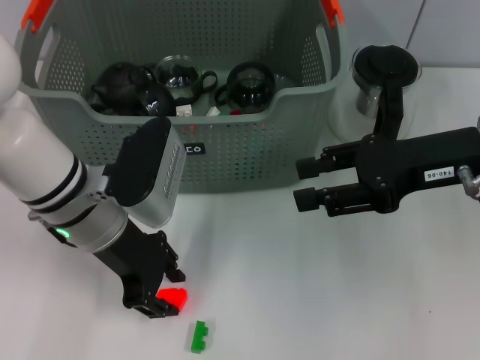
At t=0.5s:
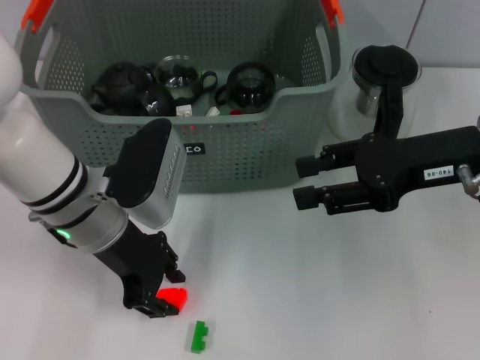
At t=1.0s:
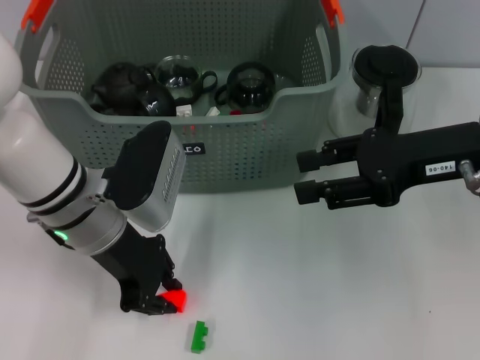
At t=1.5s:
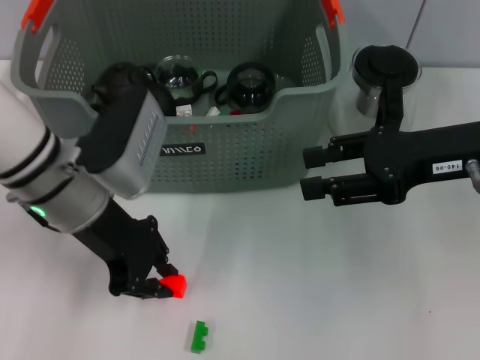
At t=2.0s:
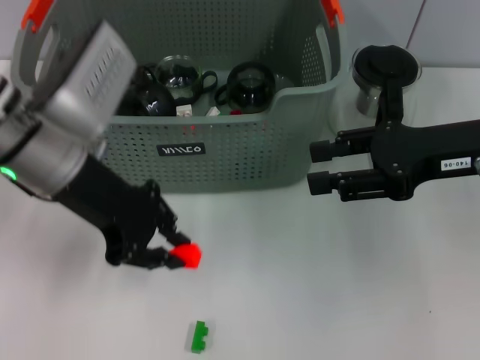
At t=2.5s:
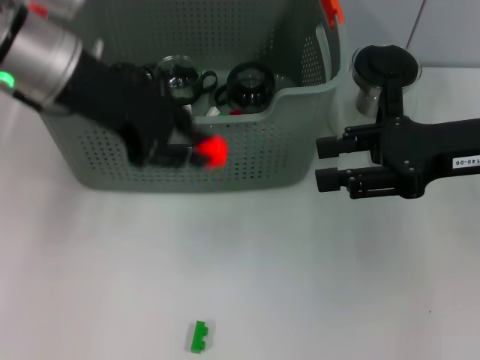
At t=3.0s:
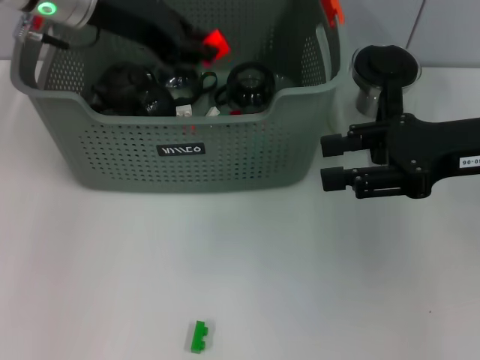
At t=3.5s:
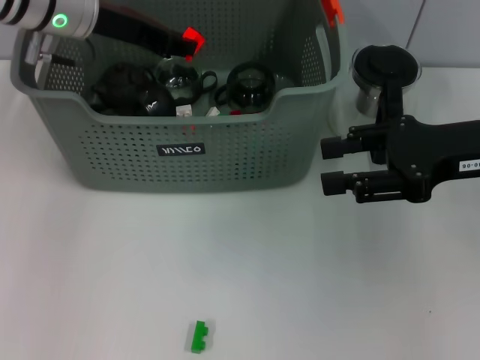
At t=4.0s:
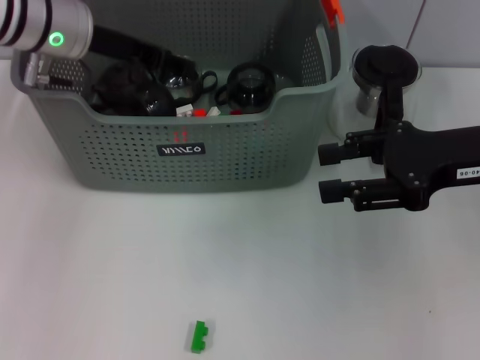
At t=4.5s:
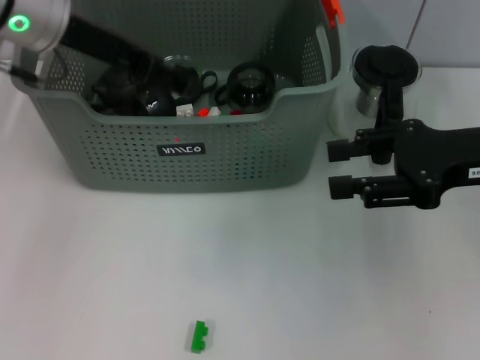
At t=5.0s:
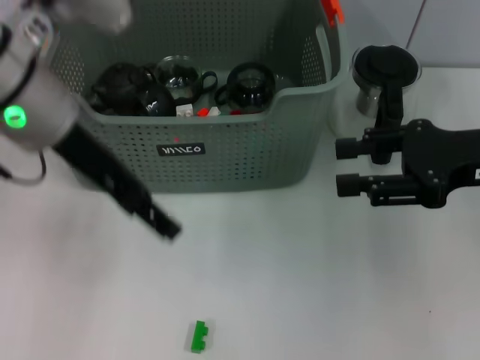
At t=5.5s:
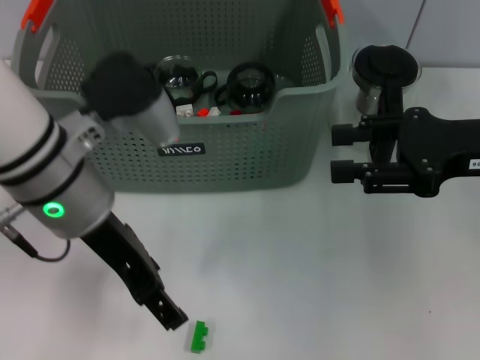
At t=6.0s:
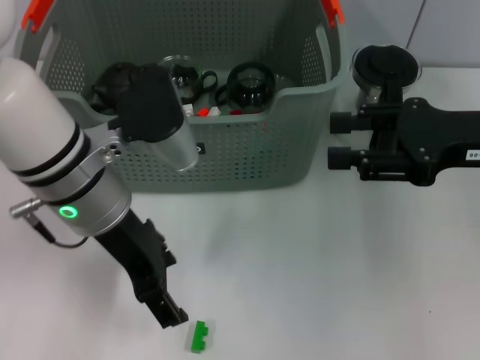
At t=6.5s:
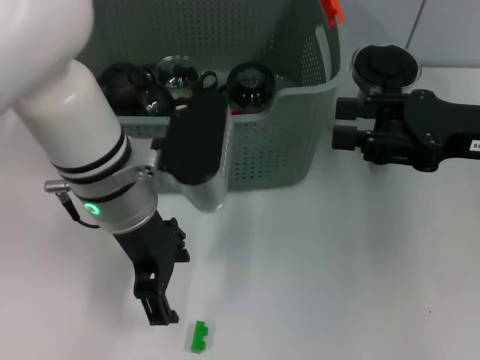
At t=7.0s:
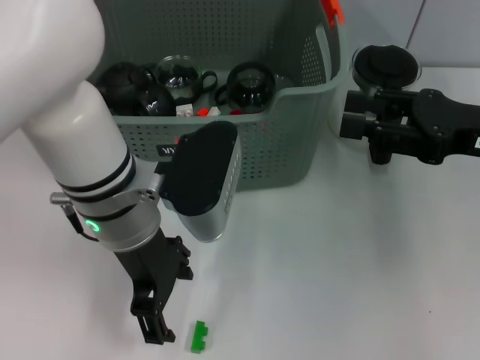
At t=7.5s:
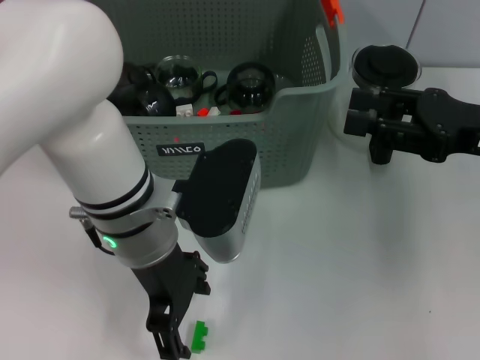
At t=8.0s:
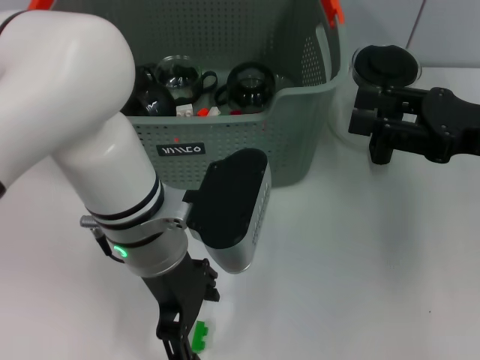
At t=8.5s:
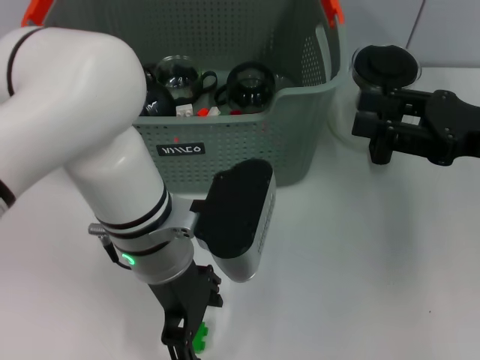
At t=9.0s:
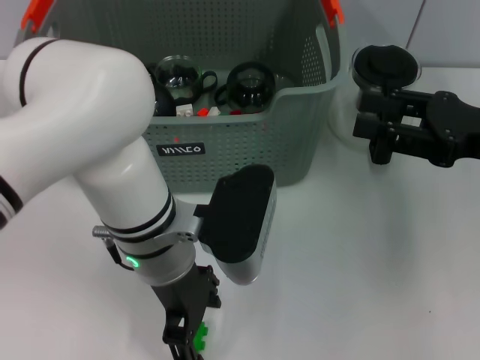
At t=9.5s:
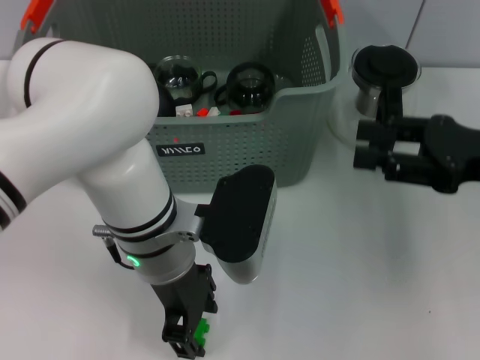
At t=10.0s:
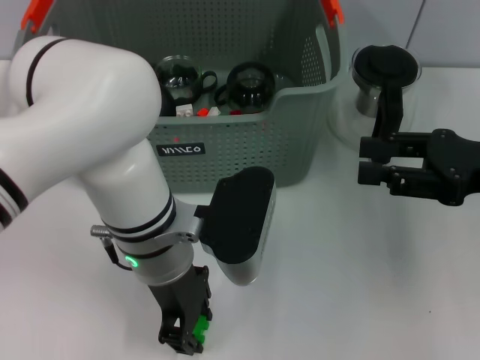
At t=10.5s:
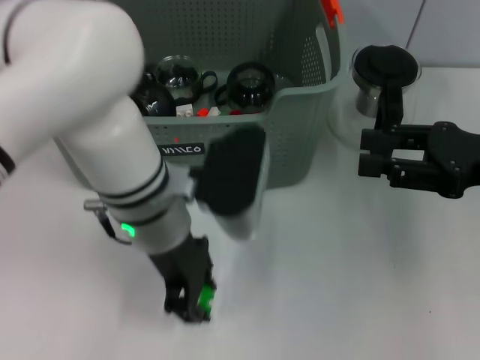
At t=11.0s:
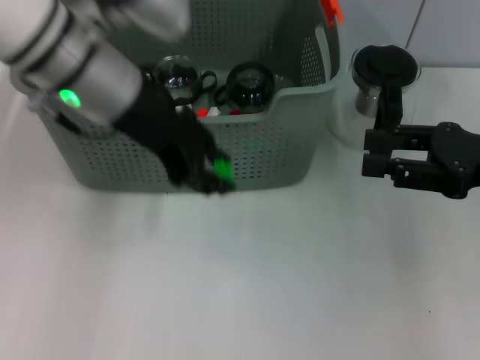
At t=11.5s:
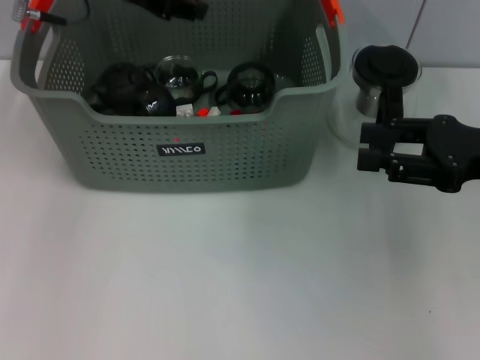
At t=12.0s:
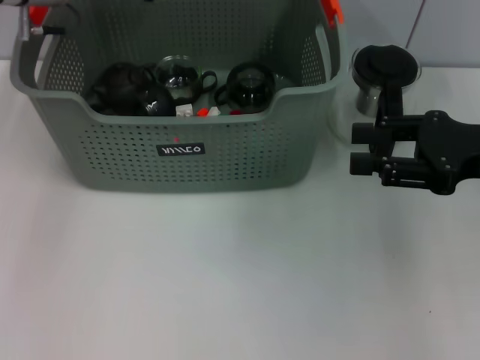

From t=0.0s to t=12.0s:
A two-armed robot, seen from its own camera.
Task of the whole recording: pick up the teacup on the table and place it into the storage bin, pick up the block on the table and place it into the storage bin.
Step, from t=1.5s to t=4.0s: Place the orange block in the storage box with left gripper.
Step, from t=4.5s to t=10.0s: Grasp the green block with left gripper.
From t=0.0s to t=2.0s: The left gripper shifts some 5 cm upward, and closes its fingers.
From t=2.0s to t=4.0s: The left gripper heads forward, covering roughly 10 cm.
From t=4.0s to t=6.0s: The left gripper goes approximately 15 cm backward and to the right, and opens.
From t=6.0s to t=8.0s: The left gripper shifts about 5 cm to the right.
From t=8.0s to t=10.0s: The left gripper closes.
From t=10.0s to t=12.0s: The left gripper goes some 25 cm forward, to the left and upward.

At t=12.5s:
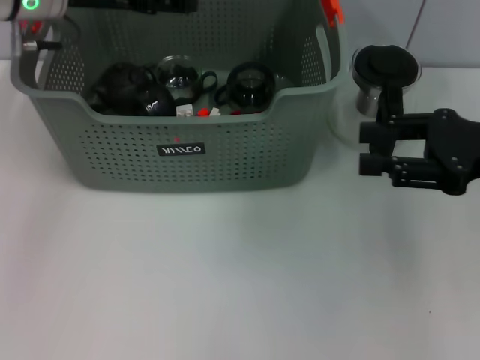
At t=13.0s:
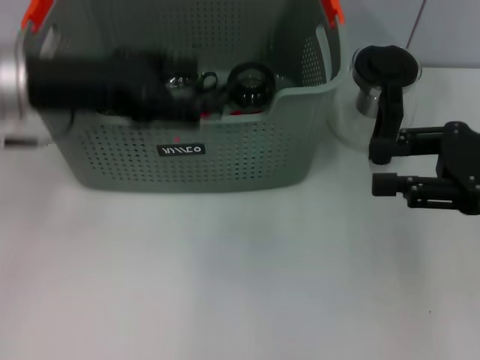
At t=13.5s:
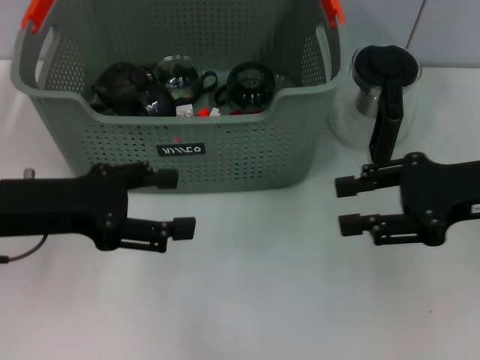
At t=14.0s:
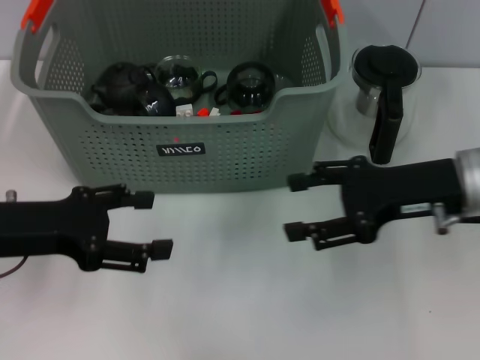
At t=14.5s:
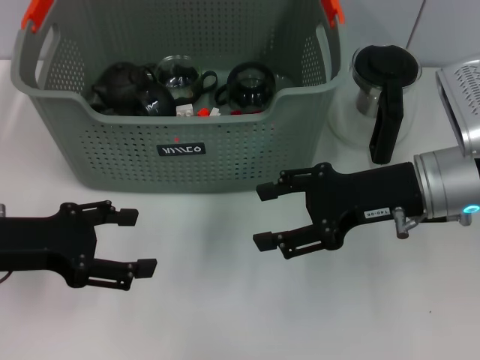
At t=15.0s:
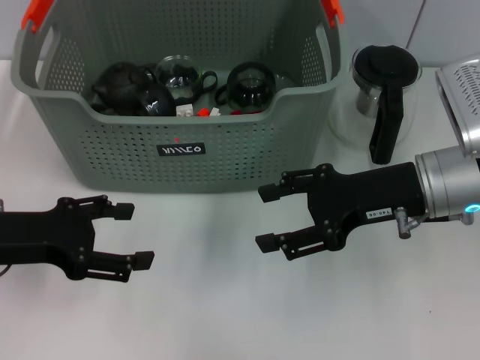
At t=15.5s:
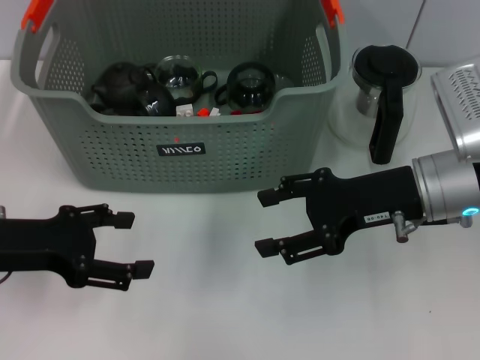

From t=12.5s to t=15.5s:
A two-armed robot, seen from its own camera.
Task of the whole recording: pick up the teacup on the table and place it into the storage bin, pick up the block on the table and place it into the storage bin.
From t=12.5s to t=14.0s: The right gripper shifts approximately 5 cm to the left. Meanwhile the left gripper moves backward and downward, about 20 cm.
From t=14.0s to t=15.5s: The grippers stay close to where they were, moving slightly.
